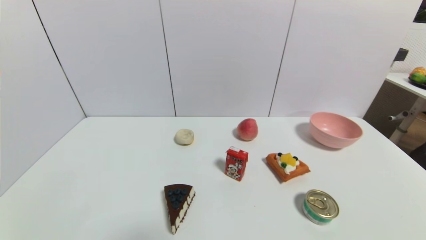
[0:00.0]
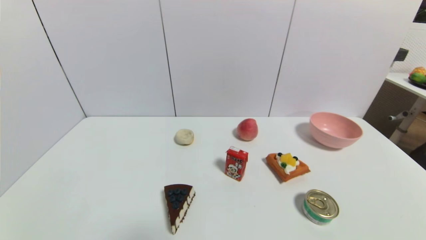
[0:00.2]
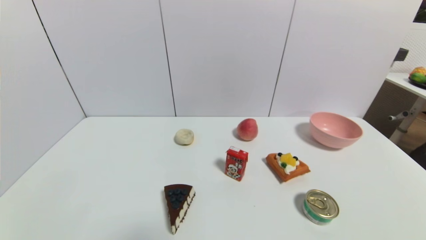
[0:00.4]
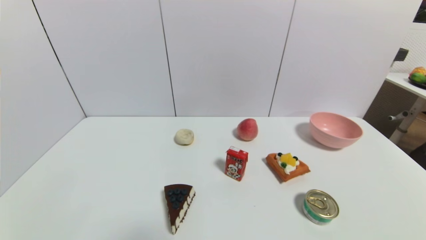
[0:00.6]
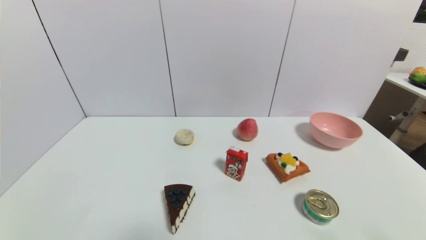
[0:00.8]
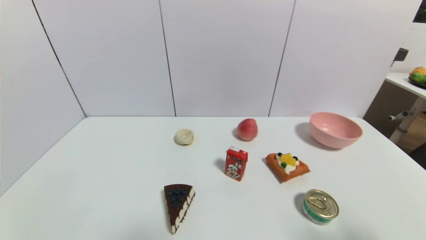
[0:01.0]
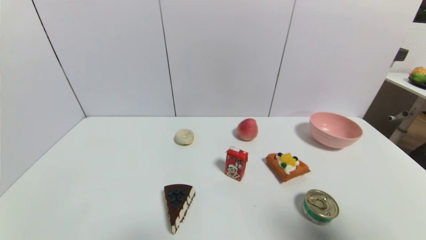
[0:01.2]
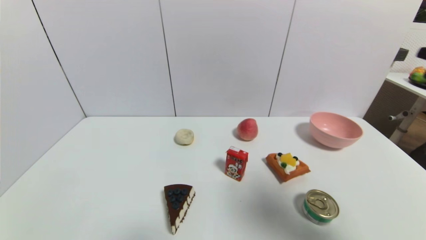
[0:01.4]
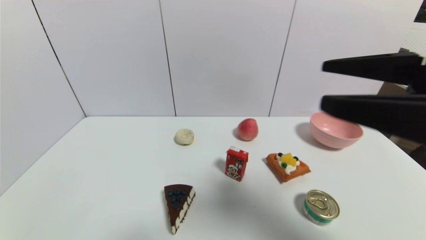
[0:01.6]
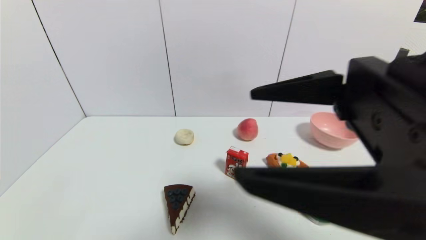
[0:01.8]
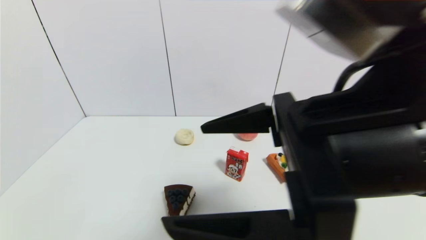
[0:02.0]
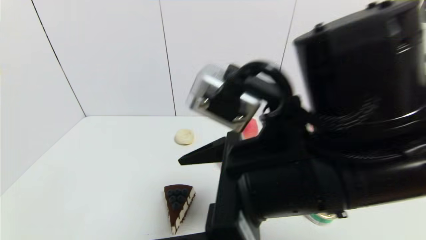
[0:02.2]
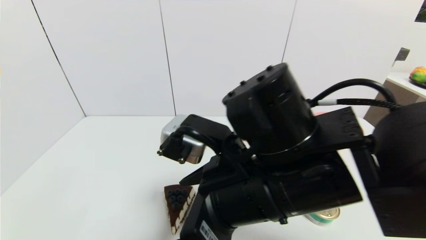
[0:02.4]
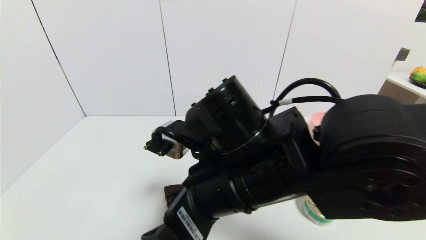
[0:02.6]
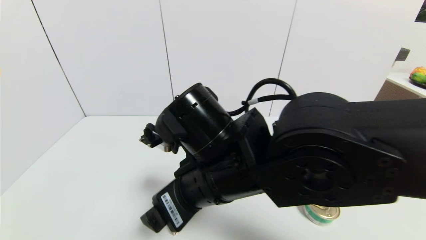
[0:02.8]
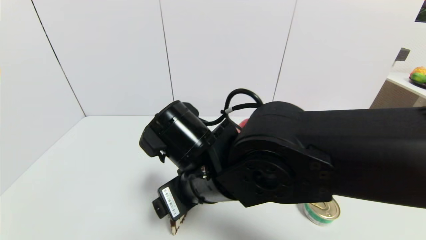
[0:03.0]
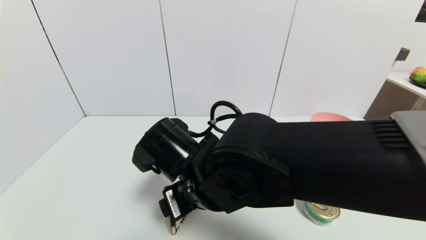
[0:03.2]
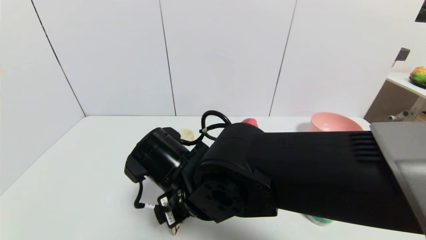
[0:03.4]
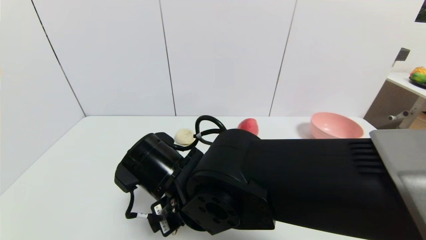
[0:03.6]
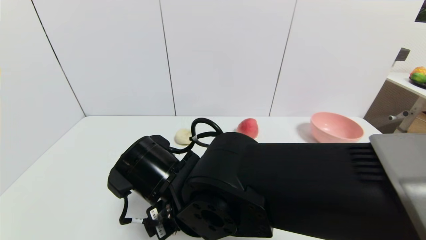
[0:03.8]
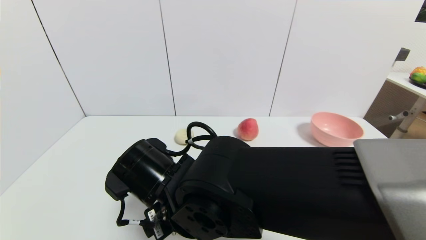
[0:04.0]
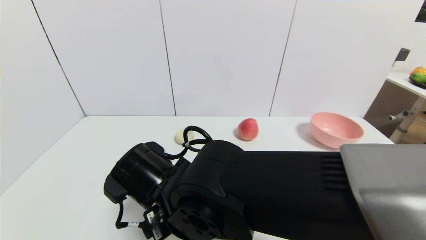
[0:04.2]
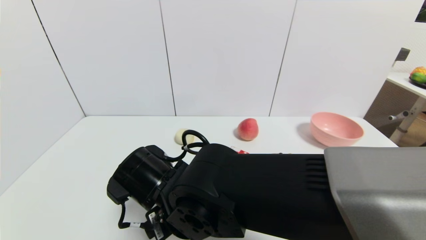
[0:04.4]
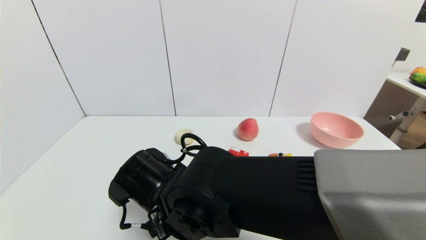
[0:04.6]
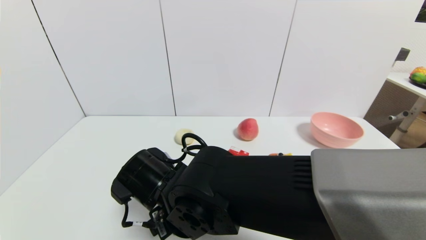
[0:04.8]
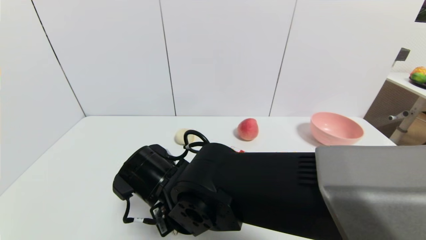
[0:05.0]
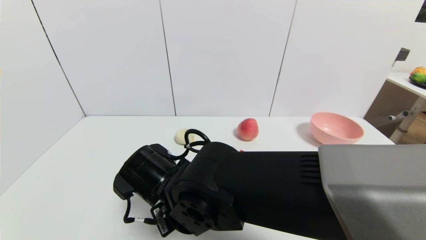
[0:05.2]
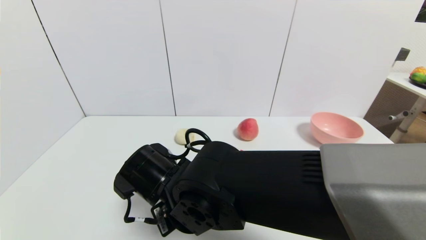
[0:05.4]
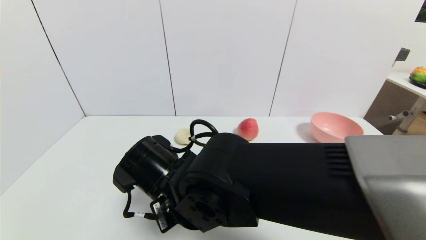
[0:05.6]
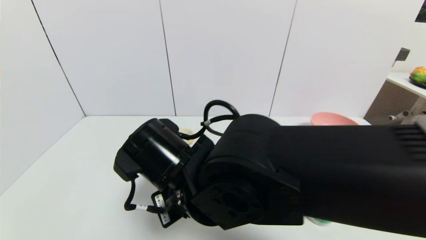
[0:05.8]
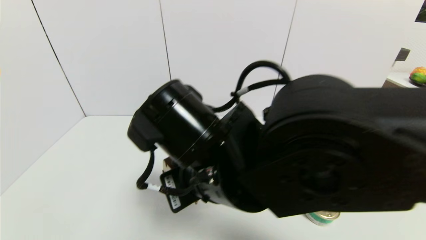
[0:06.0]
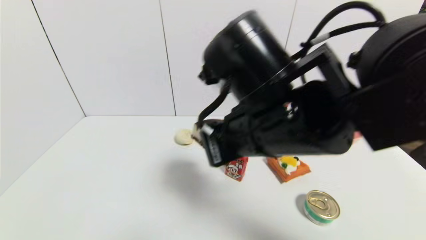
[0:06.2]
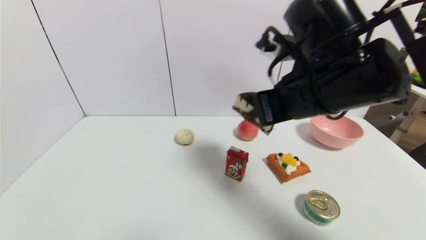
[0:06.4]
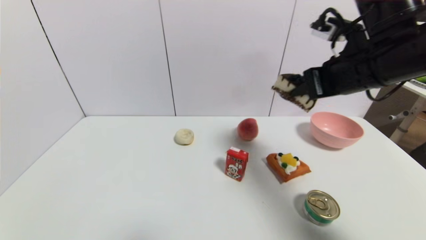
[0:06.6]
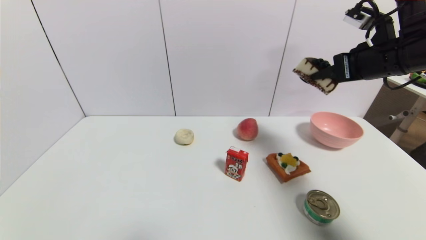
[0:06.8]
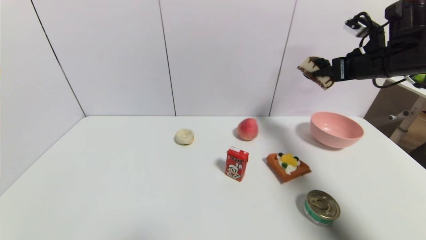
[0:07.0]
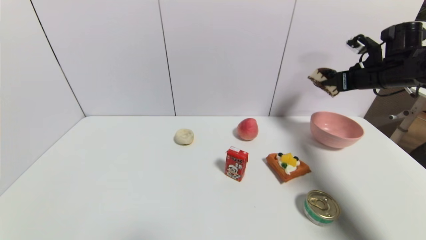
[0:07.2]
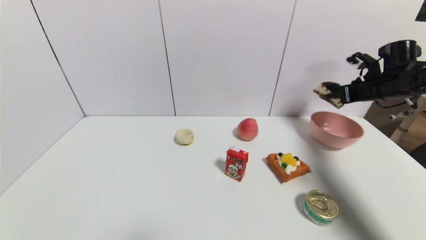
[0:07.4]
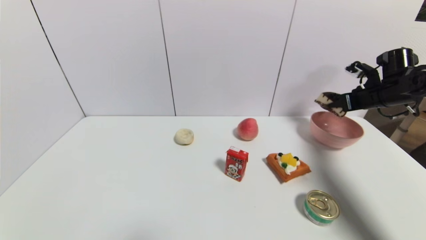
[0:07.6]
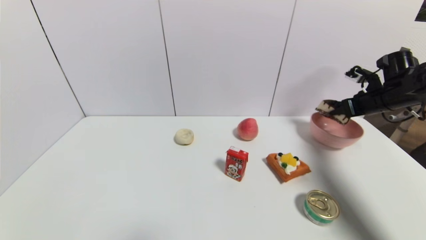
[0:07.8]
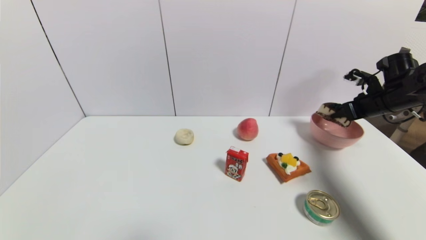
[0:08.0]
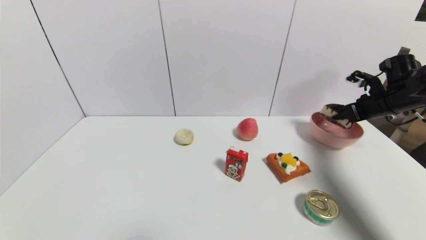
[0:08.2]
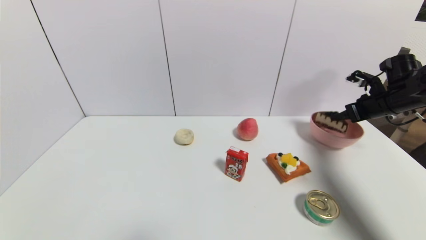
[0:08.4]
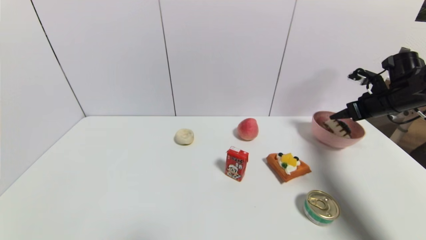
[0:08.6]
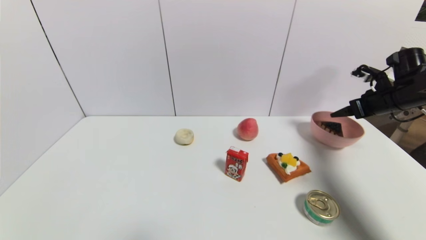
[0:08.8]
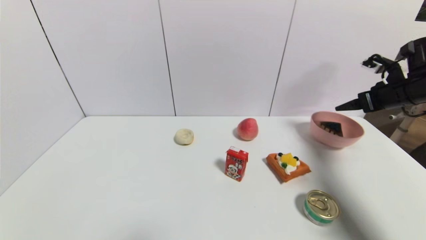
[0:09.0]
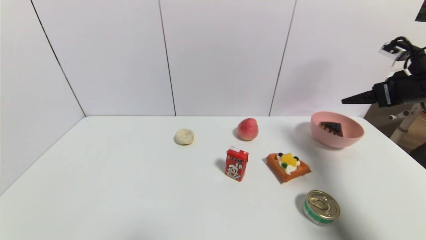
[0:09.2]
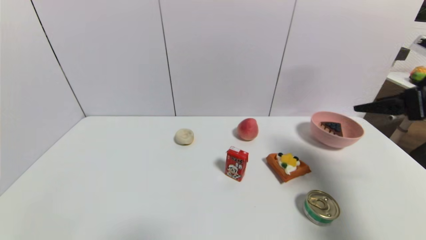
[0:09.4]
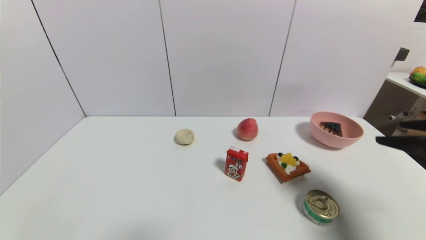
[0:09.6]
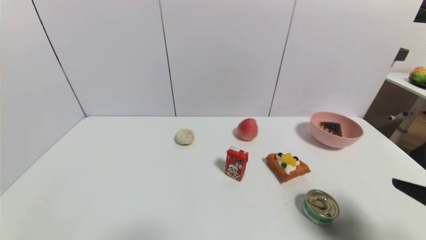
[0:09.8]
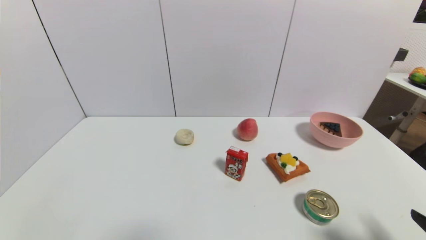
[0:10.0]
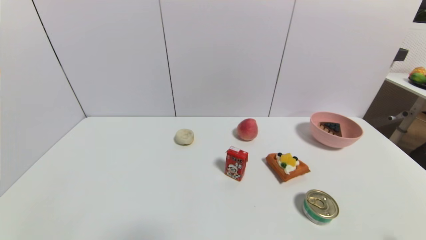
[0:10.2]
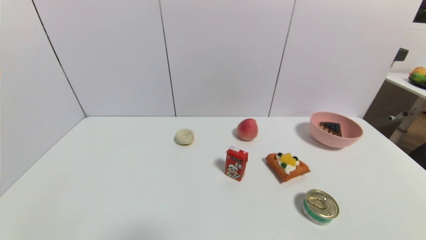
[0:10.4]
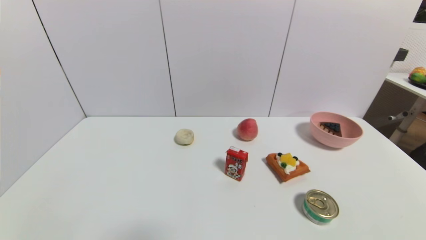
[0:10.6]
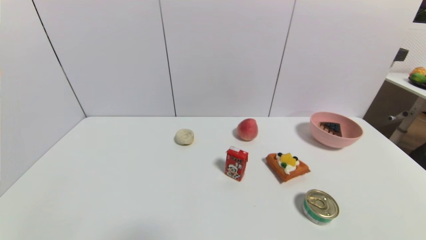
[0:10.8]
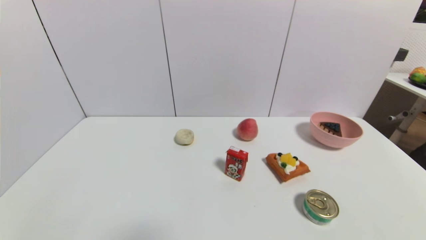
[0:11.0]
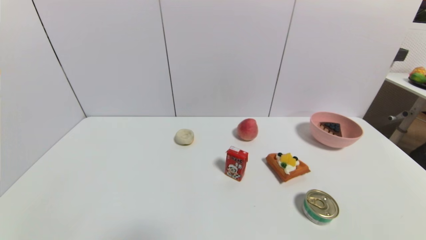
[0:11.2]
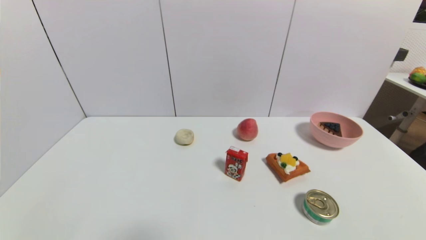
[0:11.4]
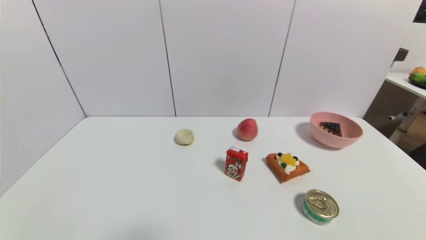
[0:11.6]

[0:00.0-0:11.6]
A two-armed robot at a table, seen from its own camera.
Task of the whole recording: use a gripper to pick the target object and place on the pink bowl.
Step, 0:00.0 to 0:05.2: Grasp the chocolate cake with the right gripper.
Step, 0:05.4 to 0:09.2: Place the chocolate cake on the pink bowl with the right gripper.
0:00.0 to 0:01.4: The right gripper is displaced upward and forward by roughly 30 cm.
0:01.4 to 0:02.8: The right gripper moves to the left and downward, roughly 30 cm.
0:02.8 to 0:04.4: The right gripper heads downward and to the left, covering some 10 cm.
0:04.4 to 0:05.8: The right gripper changes place by approximately 5 cm, and closes its fingers.
0:05.8 to 0:07.2: The right gripper goes some 50 cm to the right and forward.
0:07.2 to 0:08.8: The right gripper changes place by roughly 5 cm, and opens its fingers.
0:08.8 to 0:10.2: The right gripper goes some 35 cm backward.
